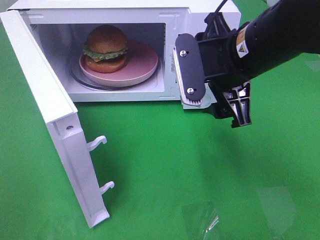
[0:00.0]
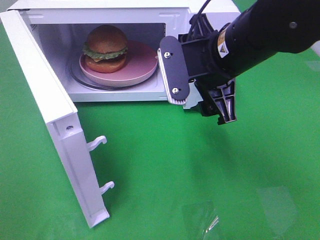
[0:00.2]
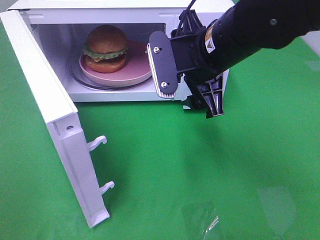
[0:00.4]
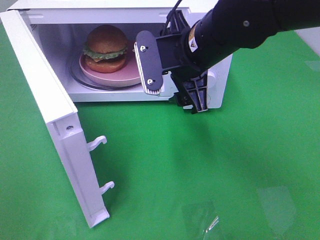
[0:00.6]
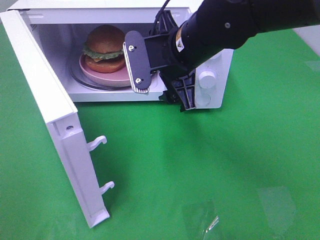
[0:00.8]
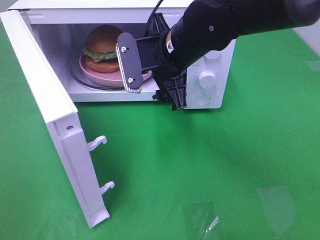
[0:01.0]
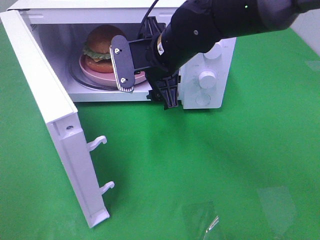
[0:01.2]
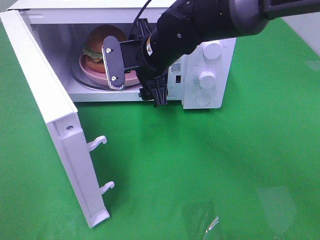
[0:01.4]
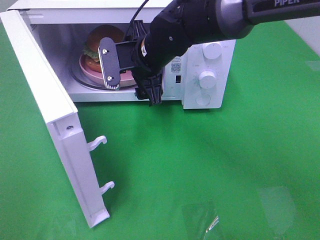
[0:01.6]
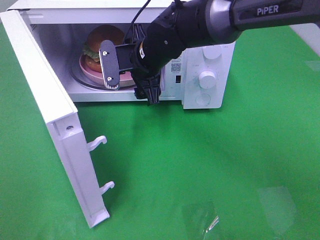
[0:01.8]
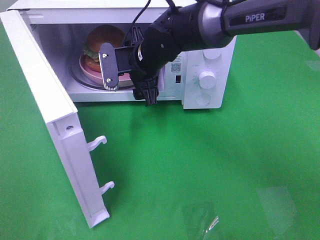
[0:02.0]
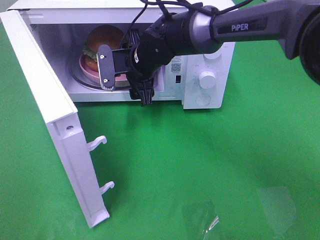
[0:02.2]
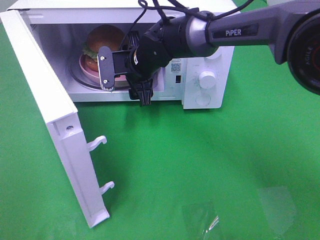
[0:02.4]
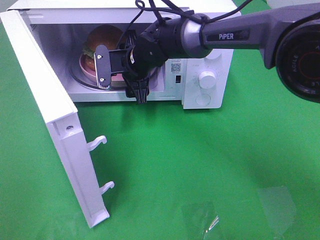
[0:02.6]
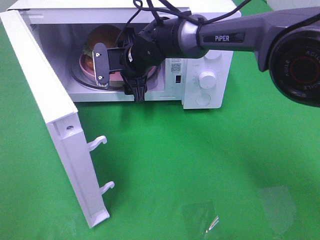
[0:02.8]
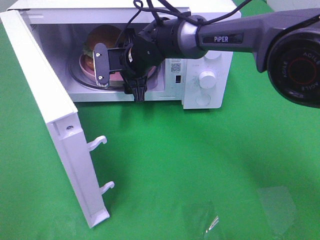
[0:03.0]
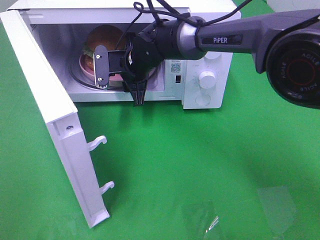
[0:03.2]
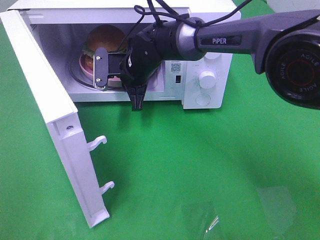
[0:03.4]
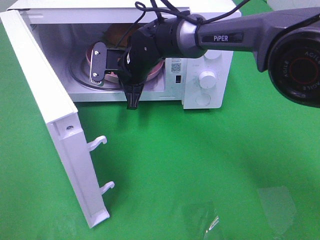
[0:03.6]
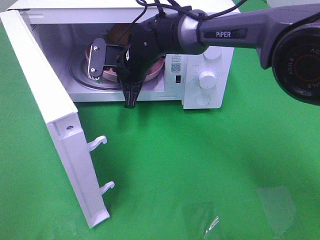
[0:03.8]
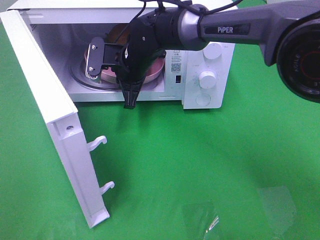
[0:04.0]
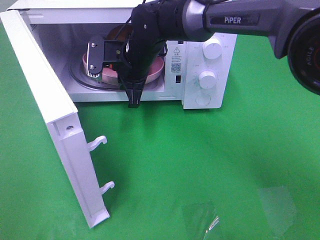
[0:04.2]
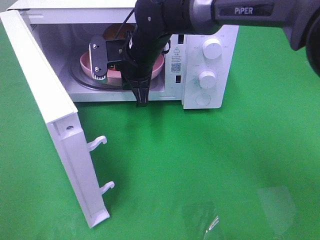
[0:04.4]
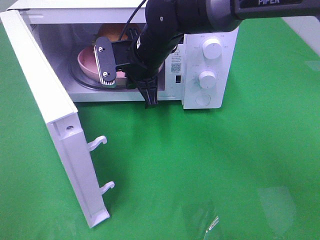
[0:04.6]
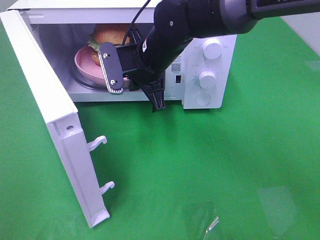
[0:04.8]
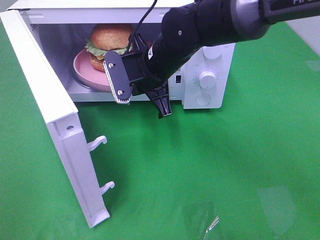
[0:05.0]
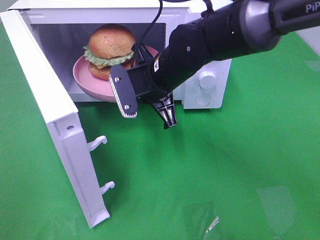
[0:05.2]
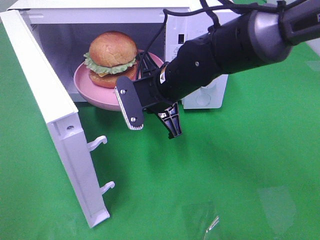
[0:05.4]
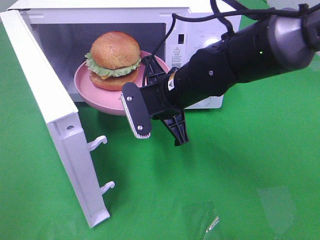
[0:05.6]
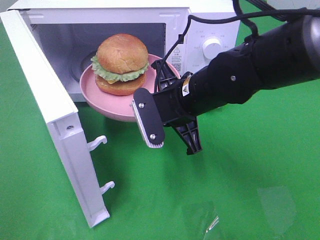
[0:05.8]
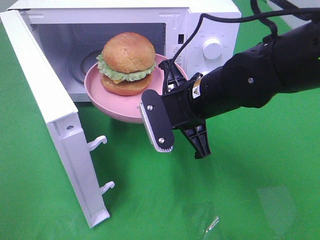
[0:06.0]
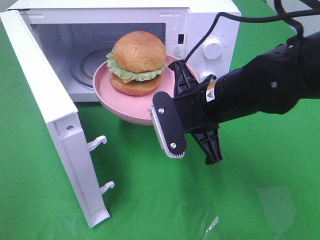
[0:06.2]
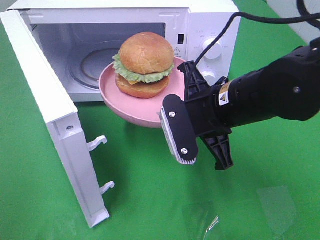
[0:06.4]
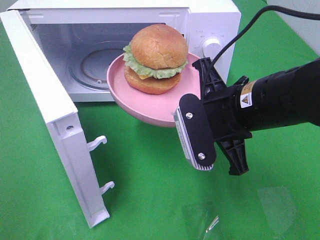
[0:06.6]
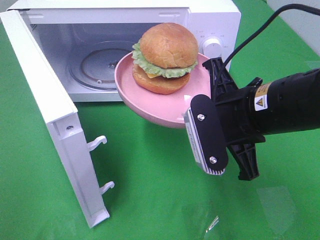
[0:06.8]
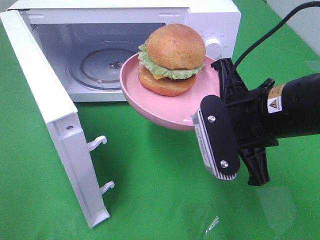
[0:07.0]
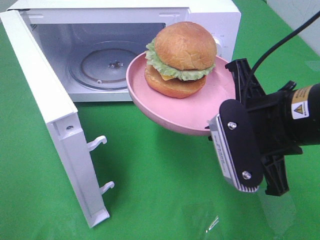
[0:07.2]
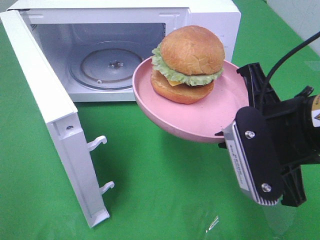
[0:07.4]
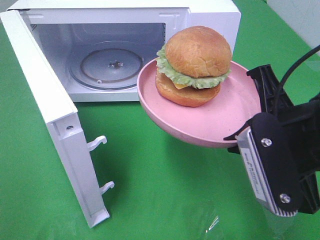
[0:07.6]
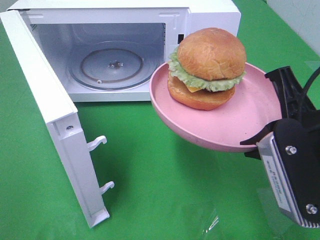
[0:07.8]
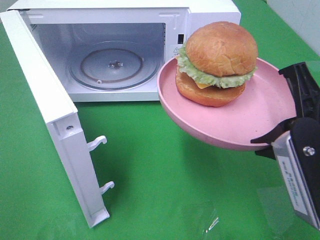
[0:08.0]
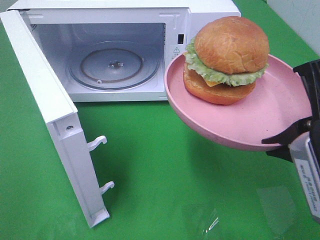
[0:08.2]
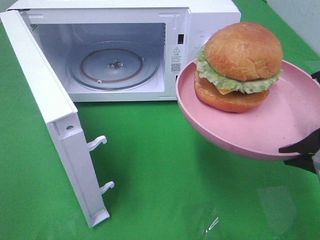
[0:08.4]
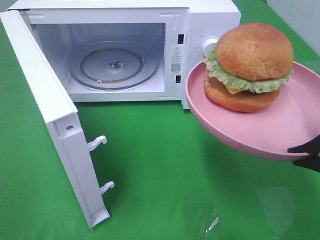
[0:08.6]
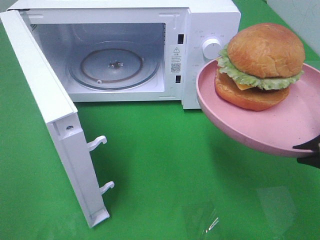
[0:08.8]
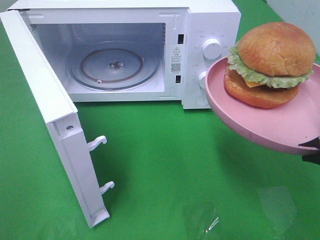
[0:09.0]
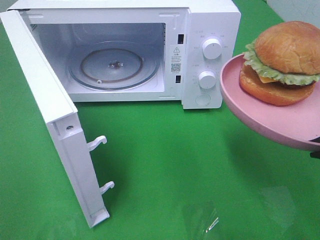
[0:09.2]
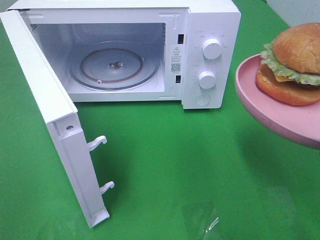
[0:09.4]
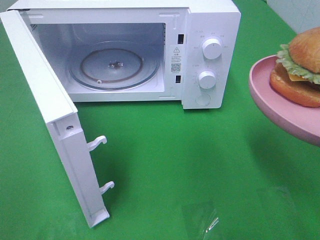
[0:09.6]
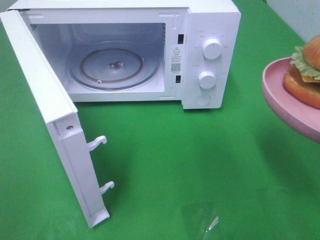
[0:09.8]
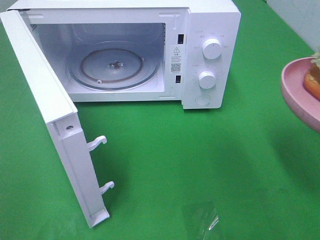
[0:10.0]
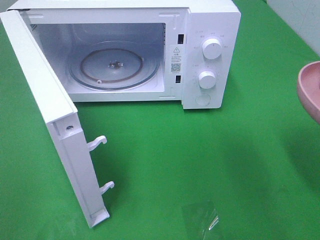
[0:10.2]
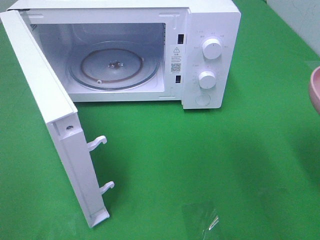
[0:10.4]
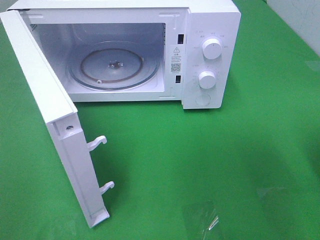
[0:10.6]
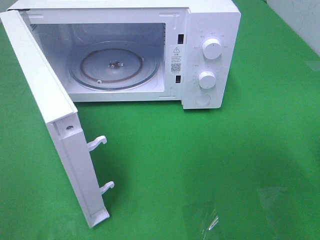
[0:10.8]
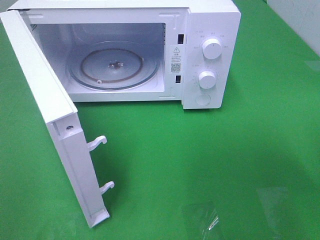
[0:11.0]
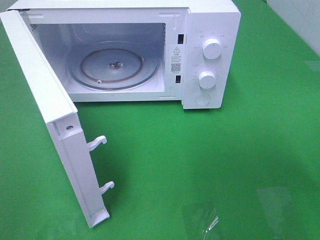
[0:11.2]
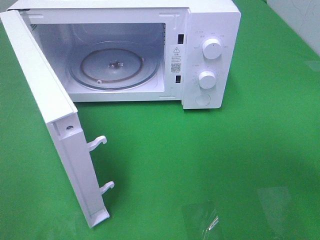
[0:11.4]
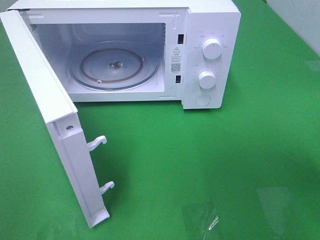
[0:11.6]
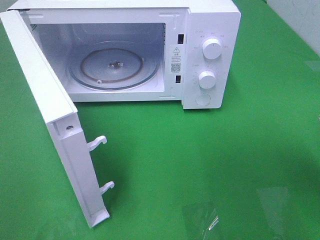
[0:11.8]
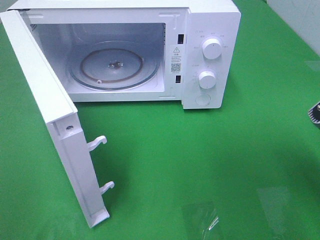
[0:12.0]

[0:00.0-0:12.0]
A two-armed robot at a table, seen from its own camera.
Task of the whole recording: Heat the burger.
Step, 0:00.0 to 0:03.4: Right hand: grab the plate with the hamburger.
0:00.0 to 0:01.6: The right gripper heads to the left, forward and downward, covering some 15 cm.
0:01.6 to 0:03.0: The right gripper goes roughly 5 cm forward.
0:03.0 to 0:04.4: The right gripper ends up about 5 cm from where it was, and closes up.
0:04.4 to 0:06.0: The right gripper is displaced backward and to the right by about 15 cm.
0:06.0 to 0:07.6: The right gripper goes about 15 cm backward, to the right and upward.
0:07.6 to 0:09.0: The right gripper shifts about 5 cm to the right.
0:10.4 to 0:12.0: The right gripper moves roughly 5 cm.

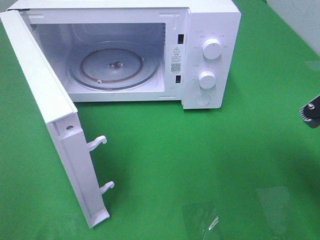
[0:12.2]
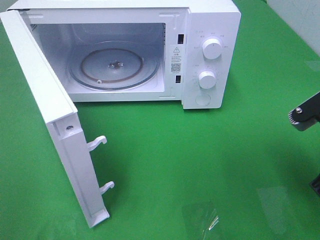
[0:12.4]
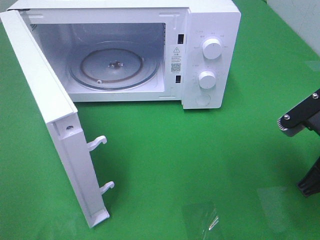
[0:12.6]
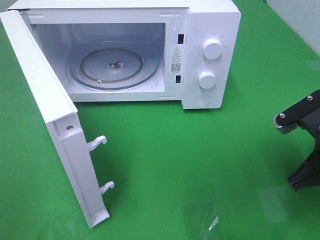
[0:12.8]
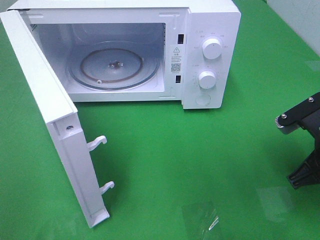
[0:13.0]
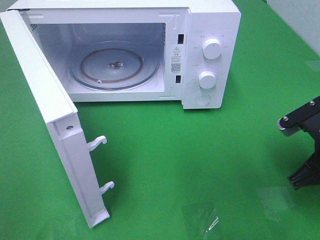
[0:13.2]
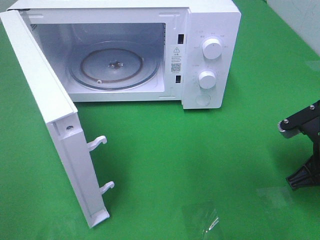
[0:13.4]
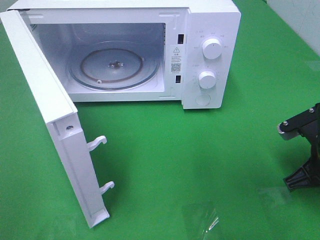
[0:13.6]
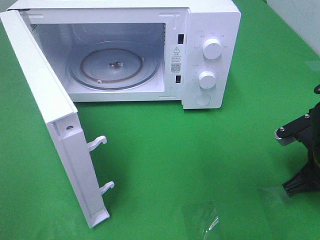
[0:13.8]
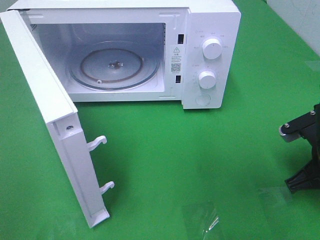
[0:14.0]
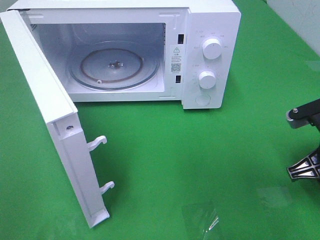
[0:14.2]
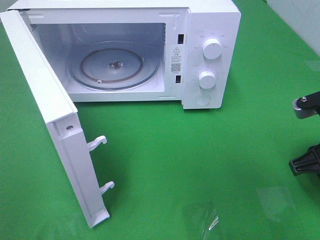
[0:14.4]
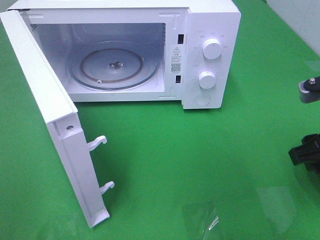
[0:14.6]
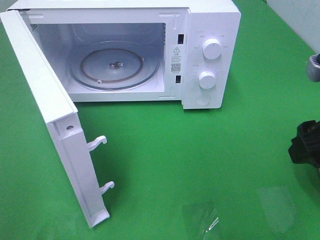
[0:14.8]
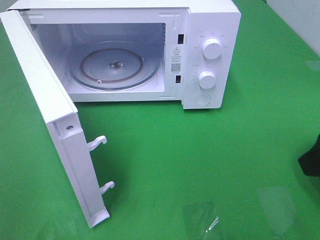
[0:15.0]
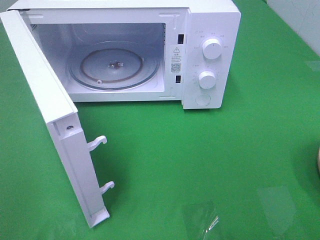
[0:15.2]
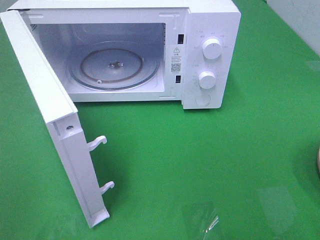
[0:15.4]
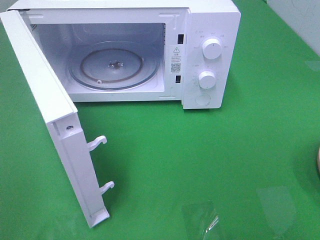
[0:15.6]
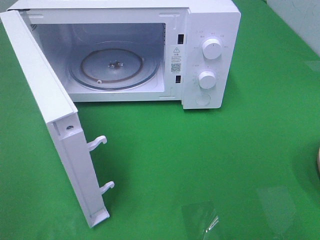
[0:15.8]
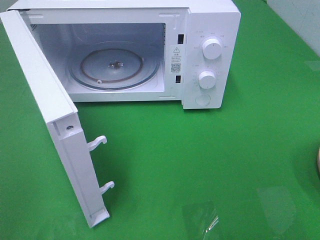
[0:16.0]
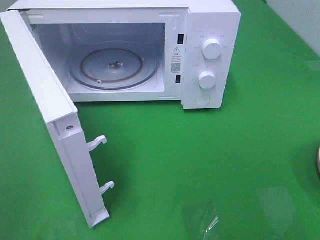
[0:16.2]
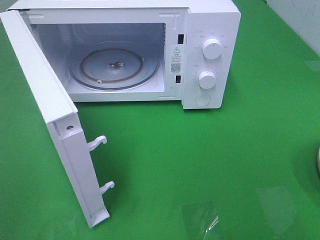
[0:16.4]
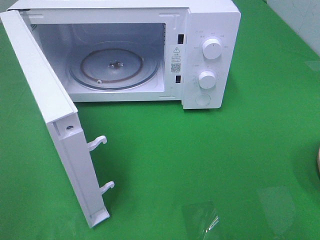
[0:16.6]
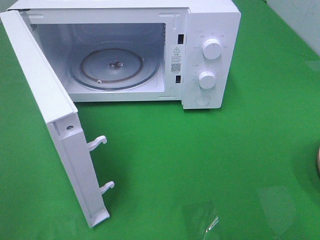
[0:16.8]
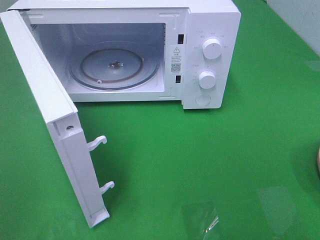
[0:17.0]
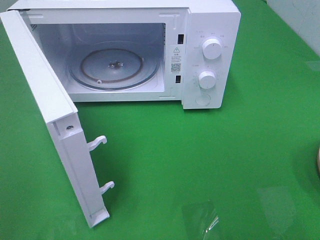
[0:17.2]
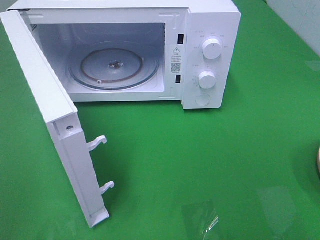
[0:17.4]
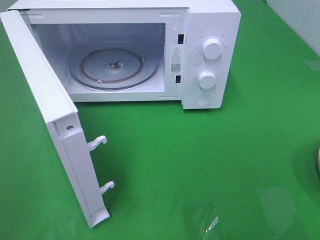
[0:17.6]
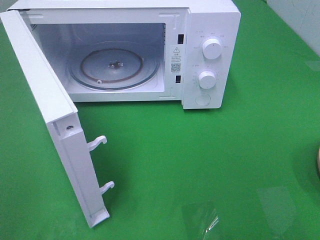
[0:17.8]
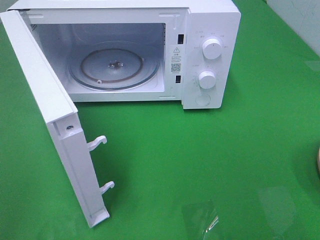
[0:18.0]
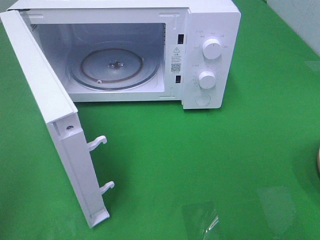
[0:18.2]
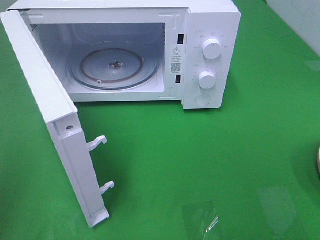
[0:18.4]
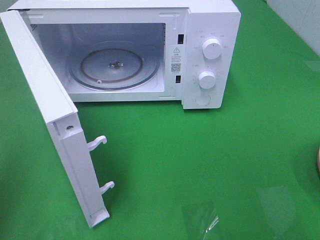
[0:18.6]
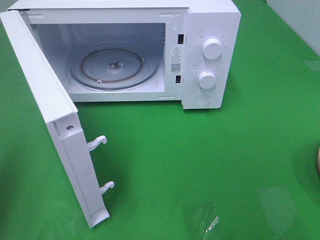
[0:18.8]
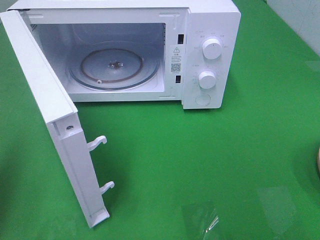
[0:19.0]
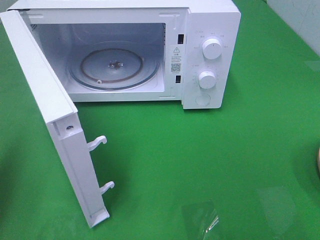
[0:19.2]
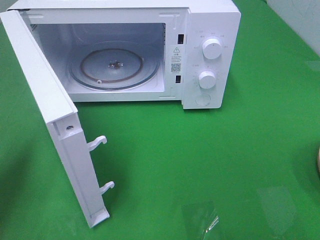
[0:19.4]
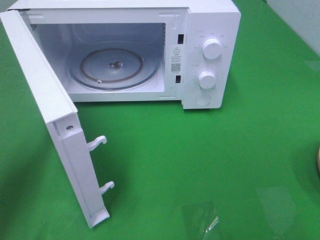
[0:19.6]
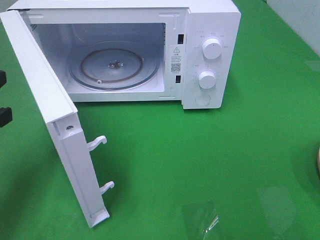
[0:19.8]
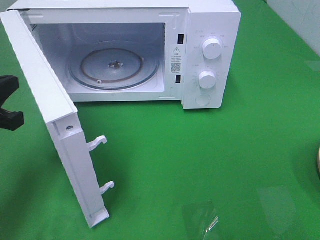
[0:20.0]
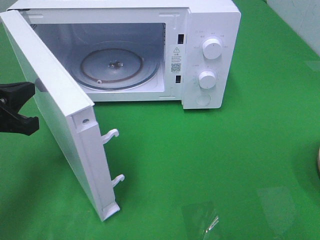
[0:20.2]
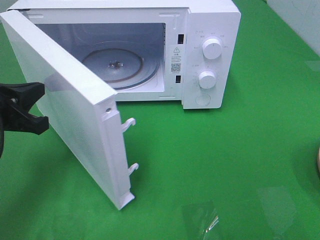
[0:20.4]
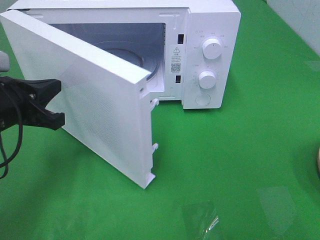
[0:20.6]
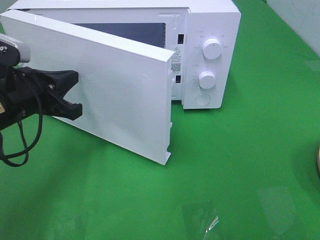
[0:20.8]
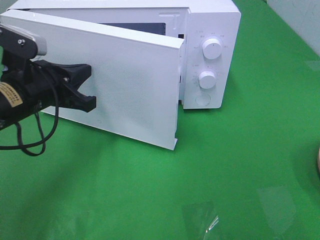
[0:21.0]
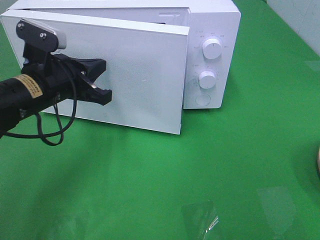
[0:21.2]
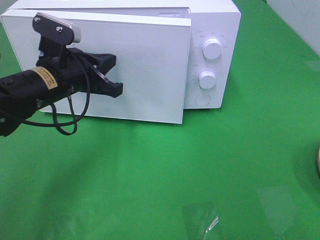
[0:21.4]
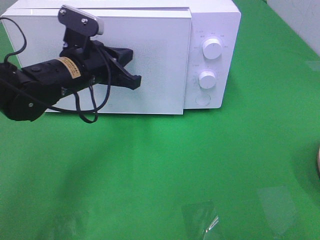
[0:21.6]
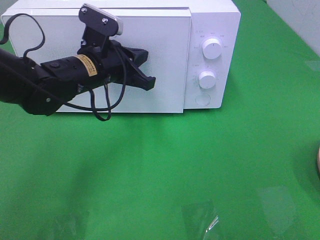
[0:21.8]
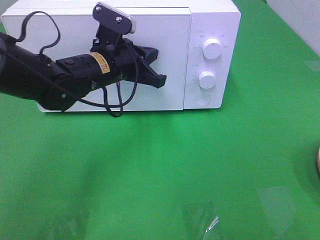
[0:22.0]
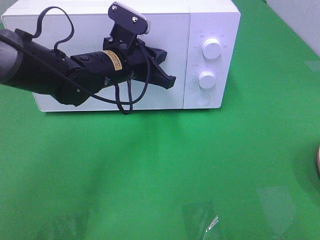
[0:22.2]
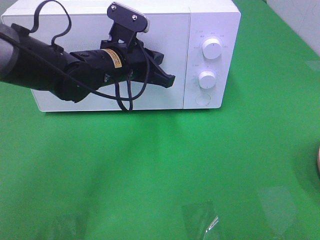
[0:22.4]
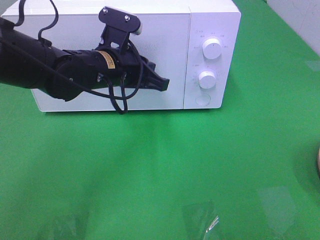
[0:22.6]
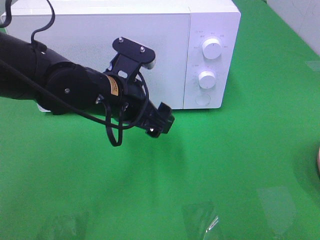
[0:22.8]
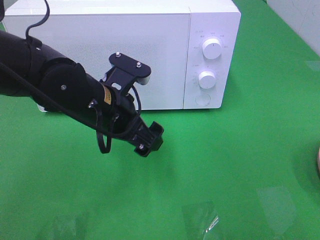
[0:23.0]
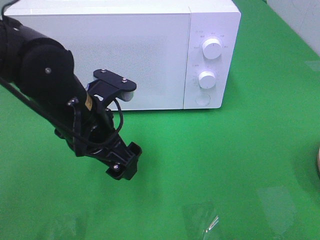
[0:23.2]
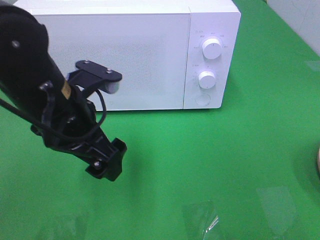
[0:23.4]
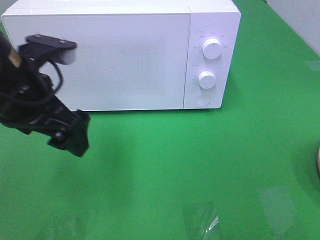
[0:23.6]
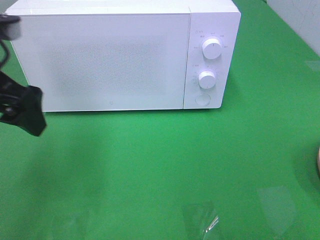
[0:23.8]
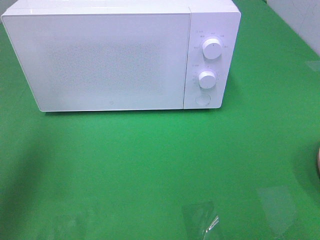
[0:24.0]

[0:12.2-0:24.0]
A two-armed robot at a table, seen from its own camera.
Task of the whole recording: Heat the burger.
Step, 0:14.2 to 0:22.6: Left hand: close the microwave door.
0:12.2 to 0:13.6: The right gripper heads downward and forward, covering about 10 cm.
0:13.6 to 0:15.2: The right gripper travels upward and backward by about 20 cm, and opens.
0:18.2 to 0:19.6: The left gripper moves forward and downward, roughly 20 cm, and closes.
0:19.6 to 0:21.0: The left gripper heads to the right and forward, covering some 15 cm.
0:21.0 to 0:22.6: The left gripper goes about 10 cm to the right.
0:22.6 to 0:24.0: The left gripper travels to the left, upward and backward by about 30 cm, and opens.
